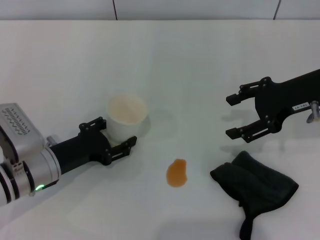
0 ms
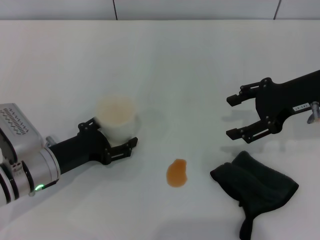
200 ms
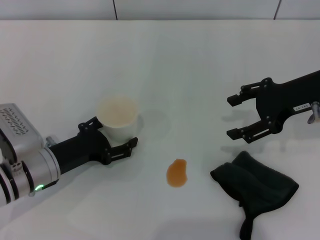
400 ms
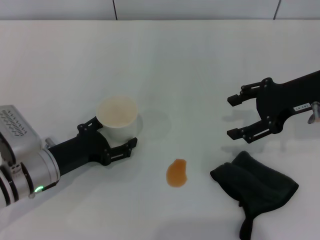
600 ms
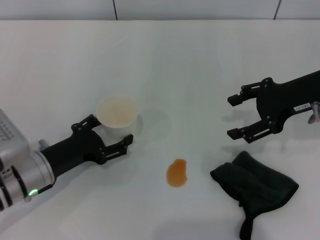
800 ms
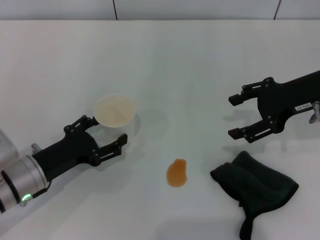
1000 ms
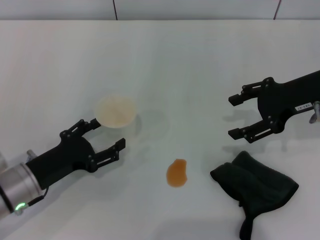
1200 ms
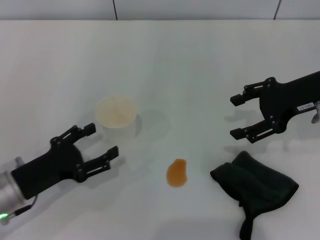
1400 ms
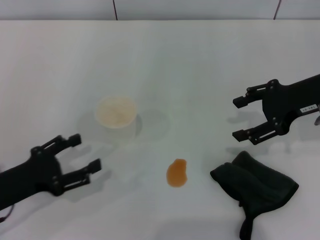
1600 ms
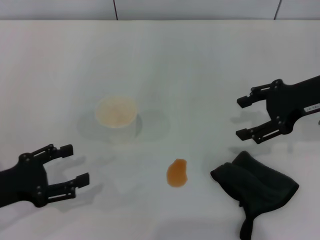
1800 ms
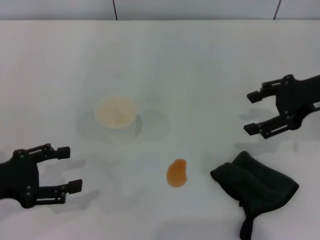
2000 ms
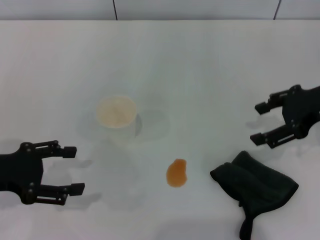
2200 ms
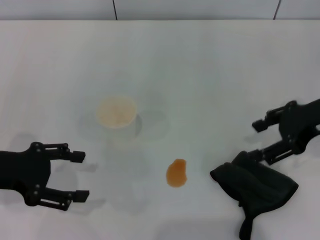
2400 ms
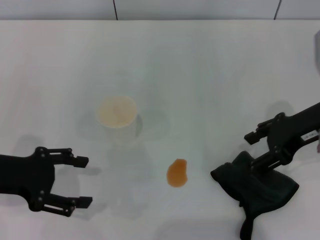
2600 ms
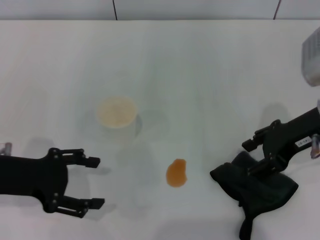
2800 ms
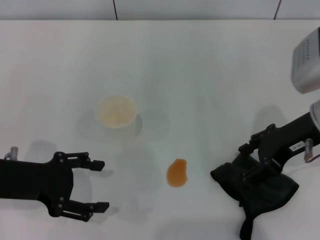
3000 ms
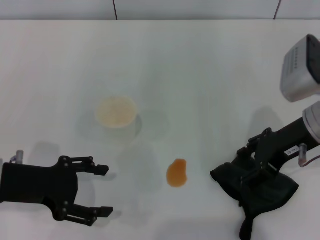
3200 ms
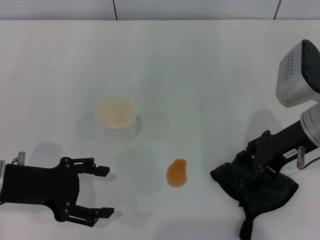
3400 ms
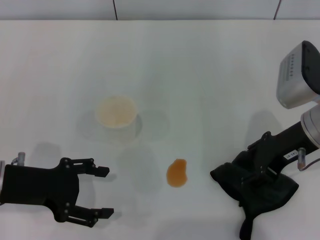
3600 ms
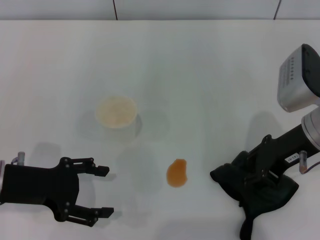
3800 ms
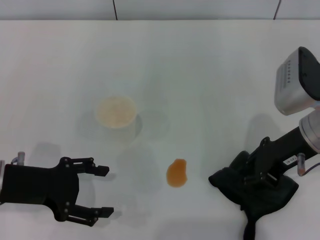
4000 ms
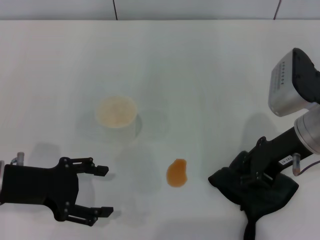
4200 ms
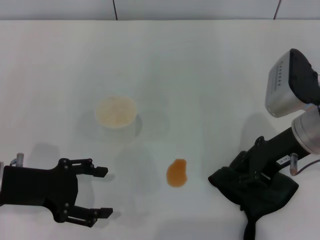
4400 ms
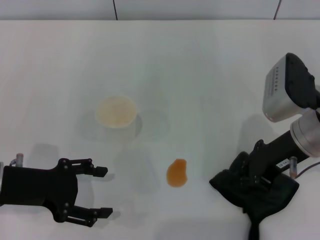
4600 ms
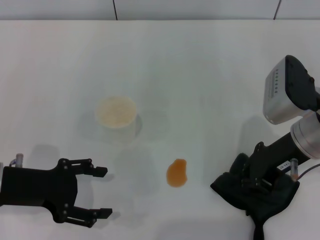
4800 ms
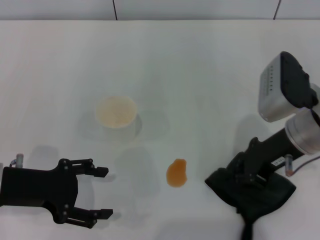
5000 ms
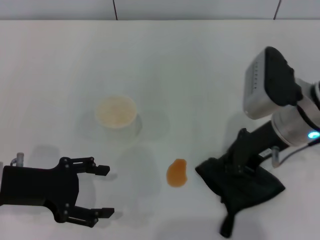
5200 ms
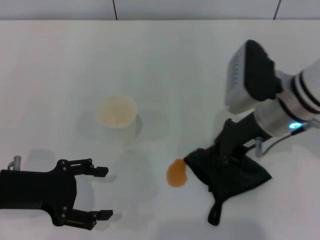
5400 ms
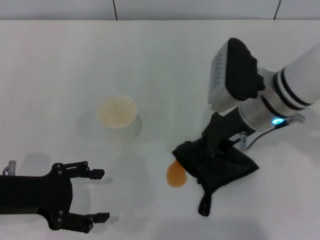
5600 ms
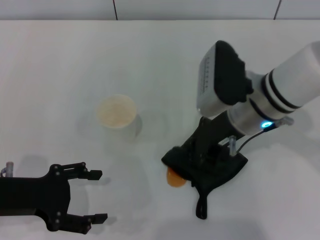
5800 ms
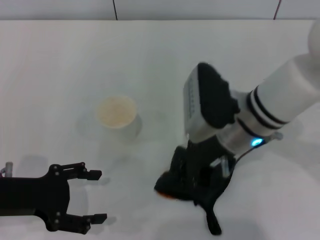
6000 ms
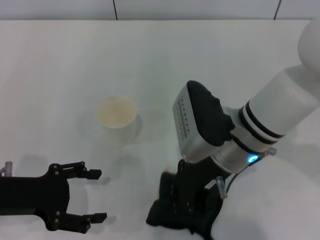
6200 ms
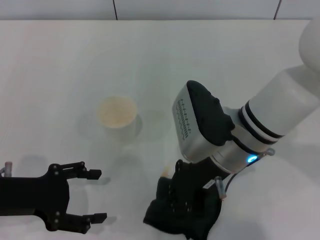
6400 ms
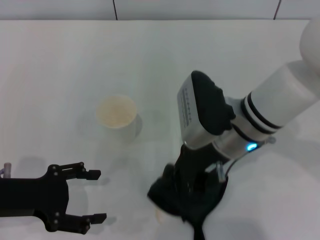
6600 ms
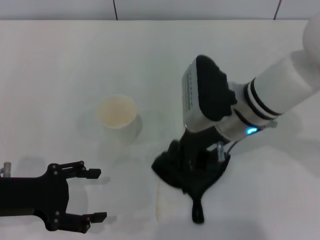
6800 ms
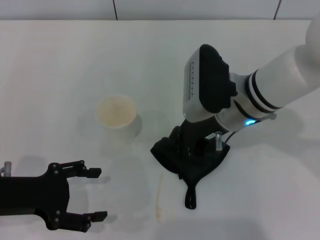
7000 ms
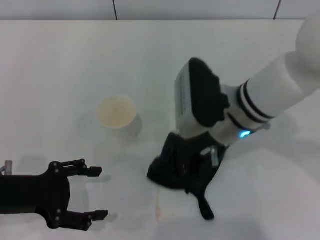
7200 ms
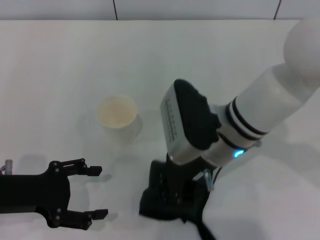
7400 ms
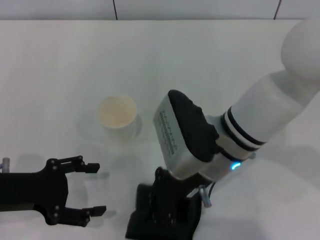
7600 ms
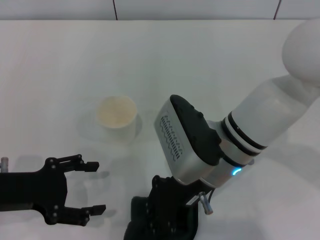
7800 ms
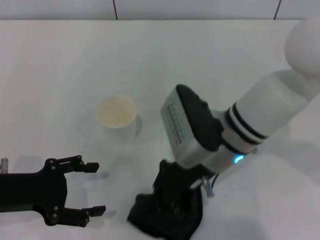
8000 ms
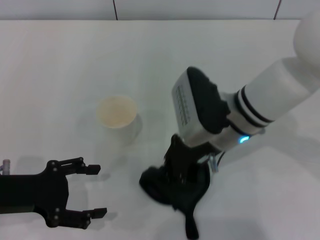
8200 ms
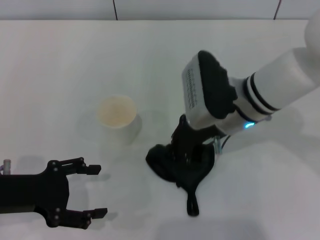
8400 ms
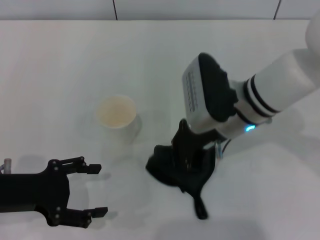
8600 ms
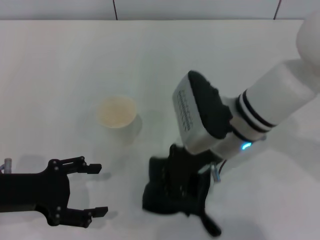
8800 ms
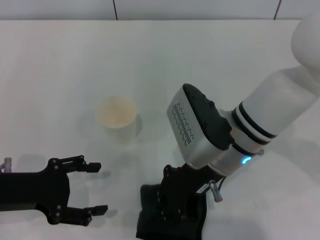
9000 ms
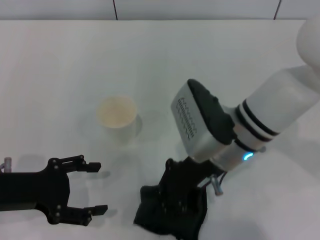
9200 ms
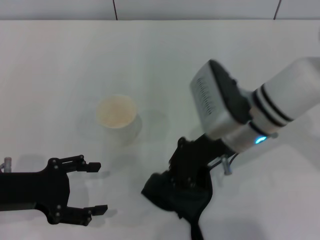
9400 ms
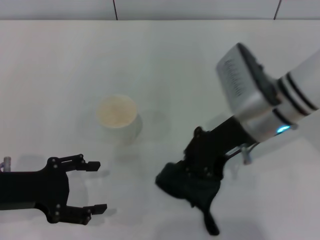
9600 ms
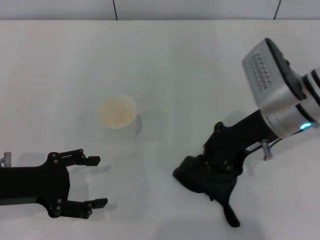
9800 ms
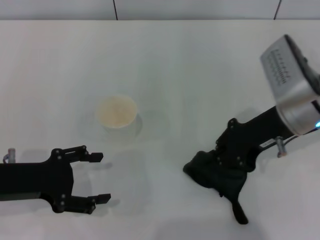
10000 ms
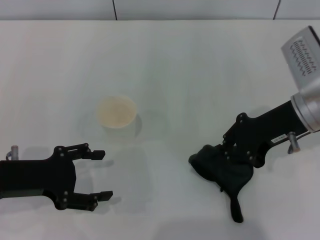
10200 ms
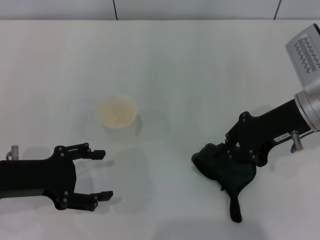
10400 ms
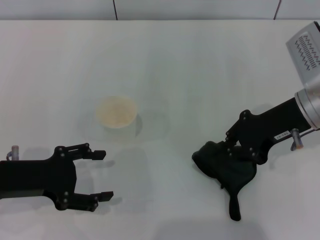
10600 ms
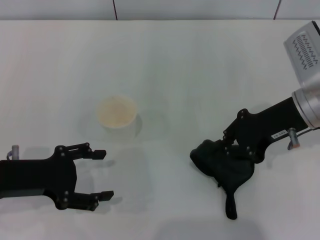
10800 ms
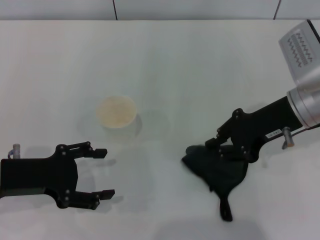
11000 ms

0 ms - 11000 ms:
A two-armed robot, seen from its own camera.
Step, 800 ms - 4000 ms: Grasp the rag with the right gripper.
Step, 4200 ms - 10400 ms: Wipe the stains off the table with the right gripper.
0 ms - 1600 ms: The left gripper is displaced to the left and backward by approximately 10 cm, and opens up.
1600 ms - 3200 ms: The left gripper shifts some 5 cm upward. Meanwhile the right gripper moves about 5 cm.
3200 ms - 4800 ms: The right gripper closes its fingers.
4800 ms - 6200 ms: The right gripper travels to the left by about 10 cm.
6200 ms - 7800 ms: There are only small adjustments of the grippers.
7800 ms - 9400 ms: The right gripper moves approximately 5 cm.
9400 ms - 11000 ms: The right gripper moves to the right, approximately 10 cm.

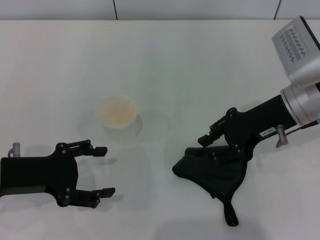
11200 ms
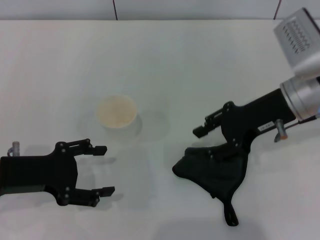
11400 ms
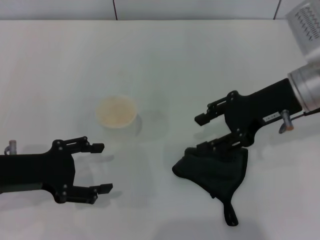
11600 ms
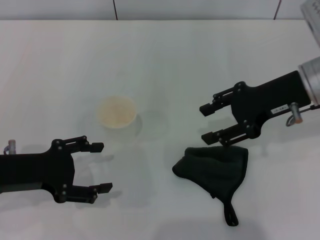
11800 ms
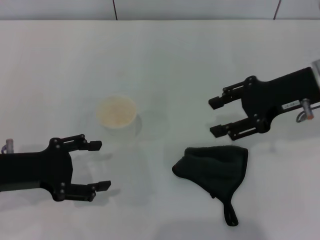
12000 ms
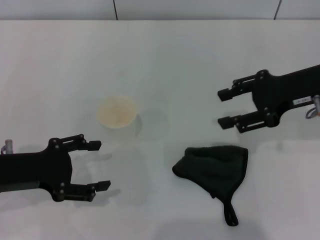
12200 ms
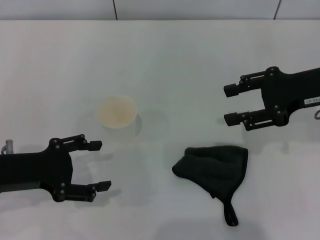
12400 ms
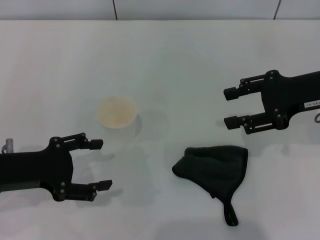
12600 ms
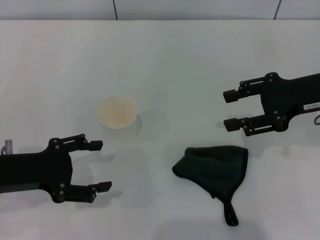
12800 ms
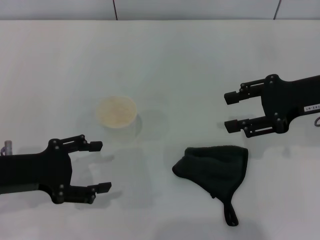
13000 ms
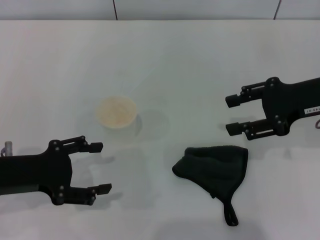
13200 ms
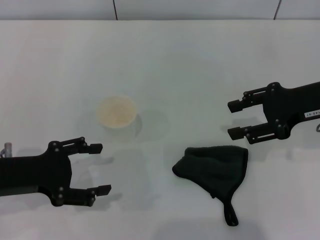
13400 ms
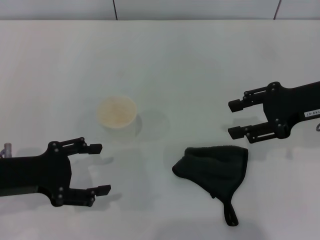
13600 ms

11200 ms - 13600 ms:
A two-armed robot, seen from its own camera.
11200 ms - 12400 ms: The right gripper heads to the right, covering roughly 5 cm, and opens up.
12400 ms - 13600 ms: The grippers stay close to where they were, moving slightly.

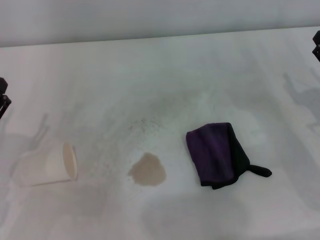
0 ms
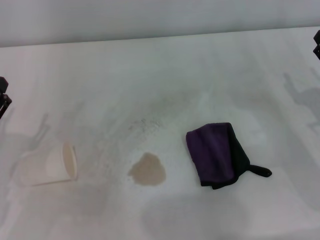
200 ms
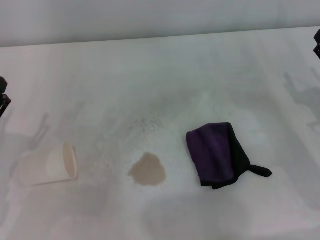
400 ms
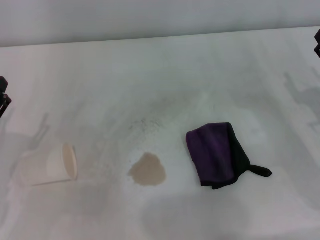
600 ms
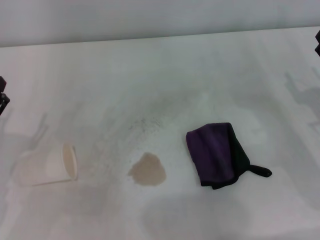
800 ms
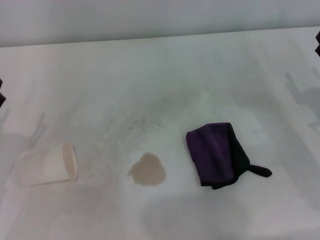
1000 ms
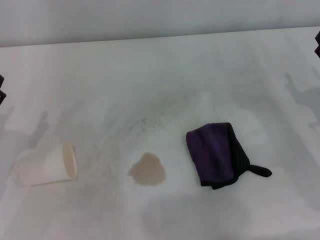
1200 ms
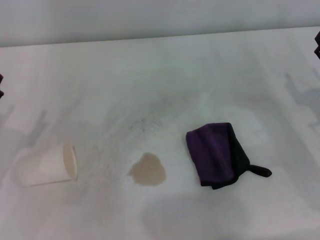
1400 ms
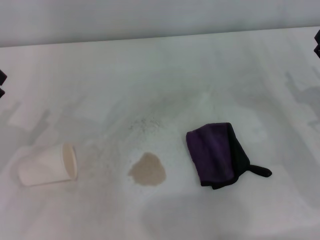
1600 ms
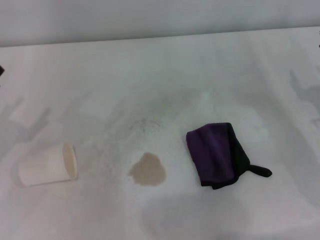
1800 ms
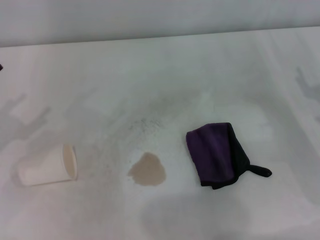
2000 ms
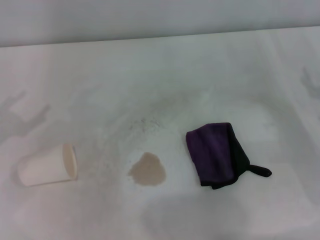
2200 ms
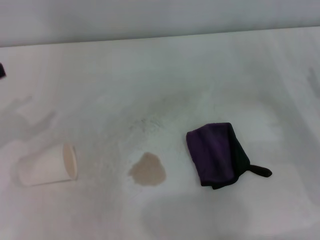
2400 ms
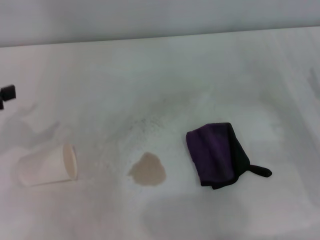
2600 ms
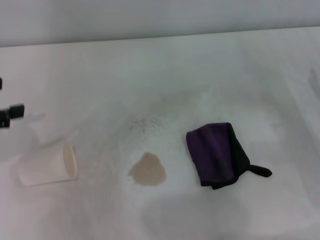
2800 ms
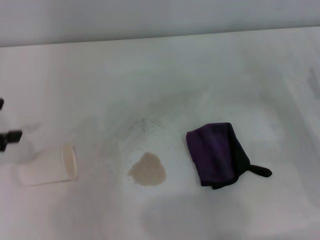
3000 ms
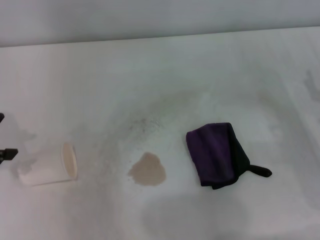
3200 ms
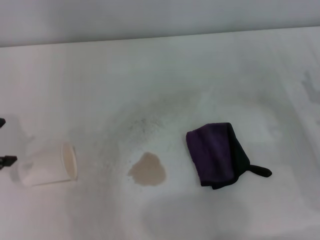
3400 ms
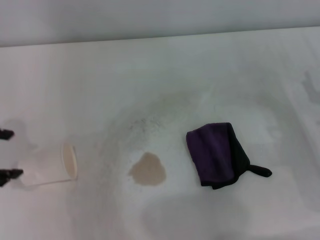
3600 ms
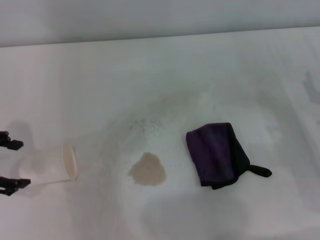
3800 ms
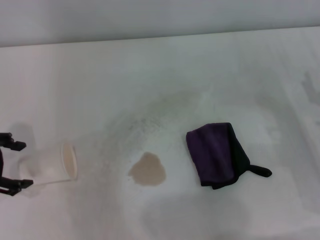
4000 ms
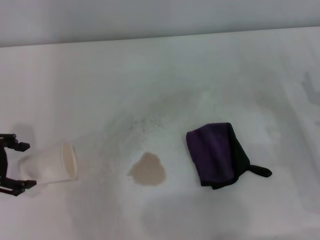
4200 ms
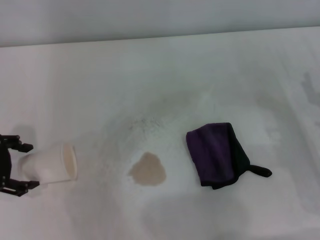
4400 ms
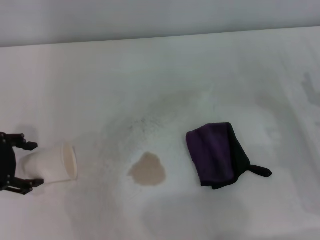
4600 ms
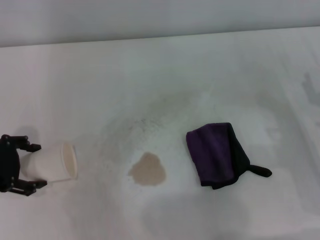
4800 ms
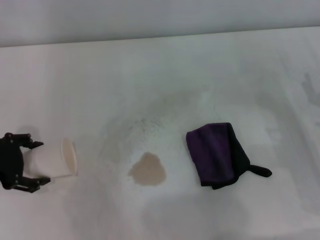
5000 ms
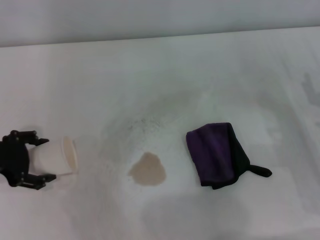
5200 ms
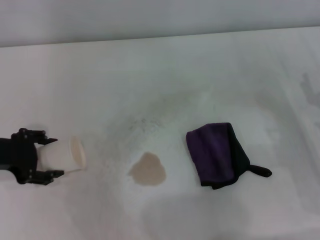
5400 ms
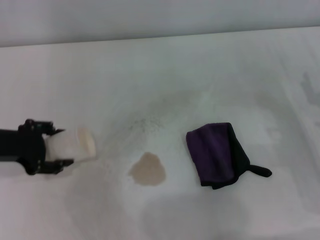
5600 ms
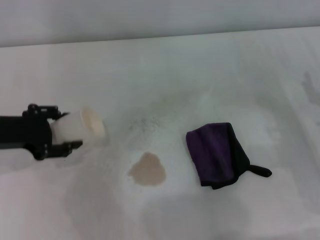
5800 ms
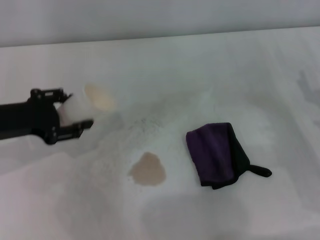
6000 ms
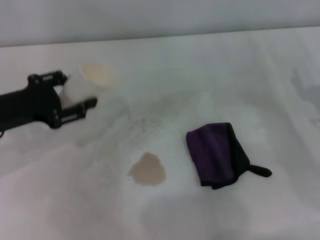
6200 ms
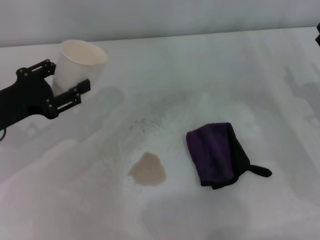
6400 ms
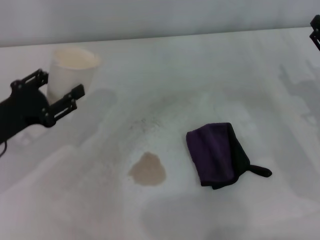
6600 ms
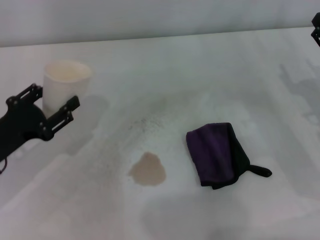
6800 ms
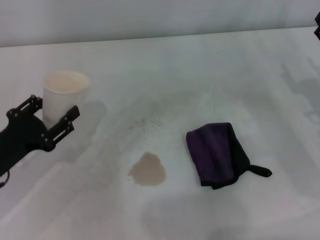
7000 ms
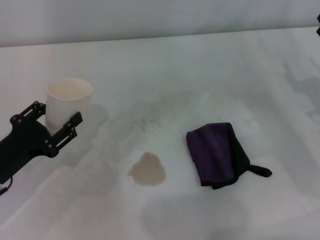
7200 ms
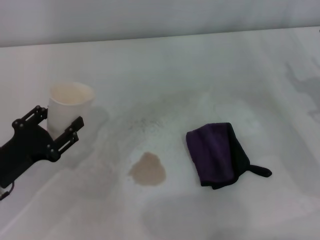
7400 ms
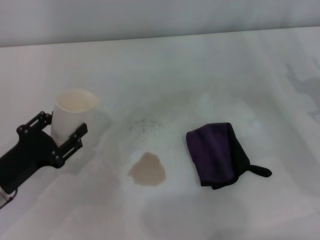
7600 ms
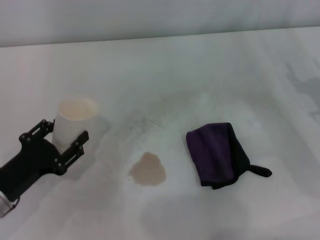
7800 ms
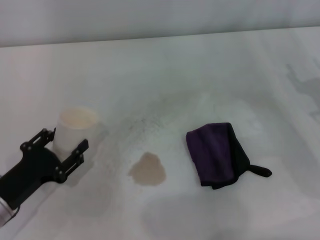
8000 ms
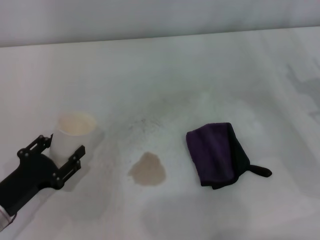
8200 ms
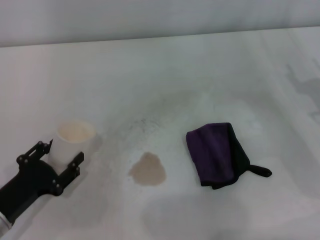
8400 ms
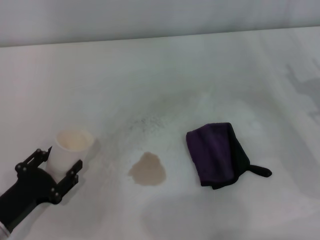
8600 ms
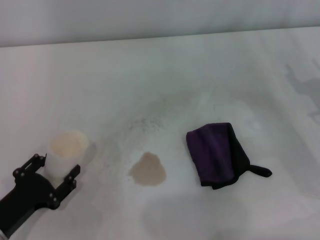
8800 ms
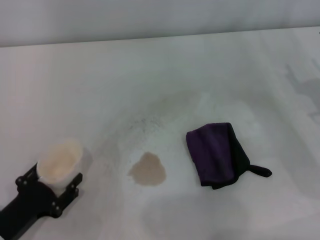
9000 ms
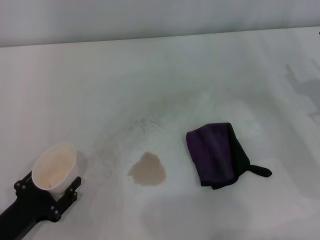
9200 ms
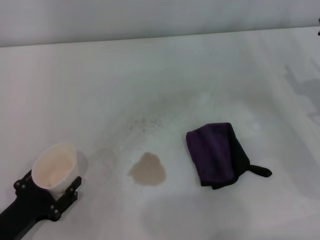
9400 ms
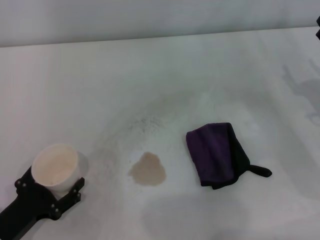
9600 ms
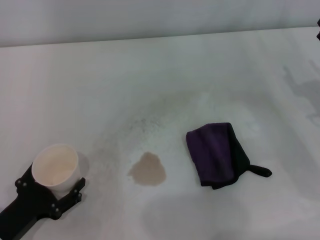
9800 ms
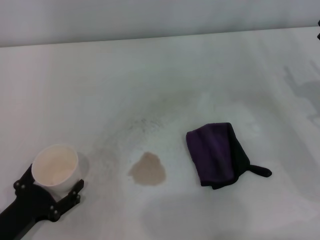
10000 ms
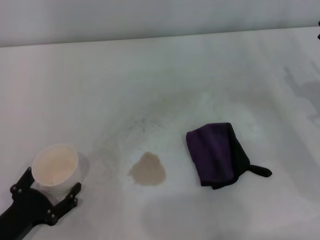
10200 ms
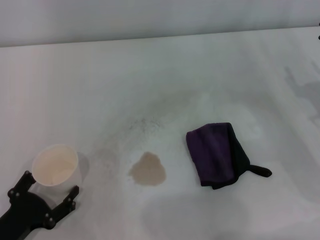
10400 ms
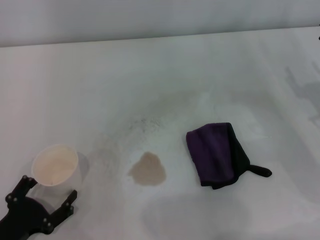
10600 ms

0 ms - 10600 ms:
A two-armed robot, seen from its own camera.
Step, 0 ms - 5000 ms: Grasp the paper cup with the left gripper.
Step, 5200 ms - 9800 ms: Stand the paper cup upright with the left gripper.
3000 ms - 4600 ms: The left gripper heads downward, covering about 5 cm.
4600 ms - 6000 ms: The left gripper closes its fingers.
6000 ms - 7600 ms: The left gripper goes about 10 cm downward and backward.
7600 ms - 9000 ms: The left gripper shifts some 5 cm backward.
9000 ms - 10600 ms: The left gripper opens.
